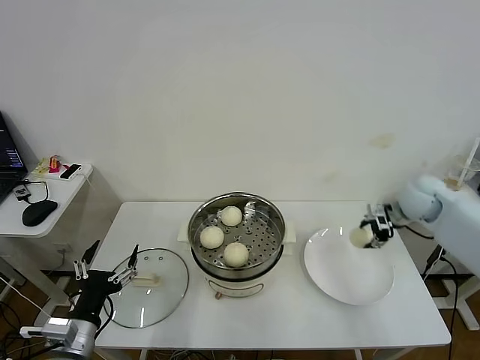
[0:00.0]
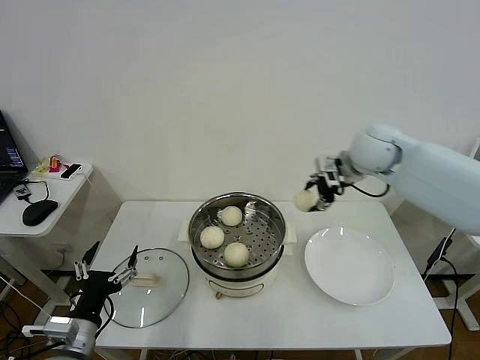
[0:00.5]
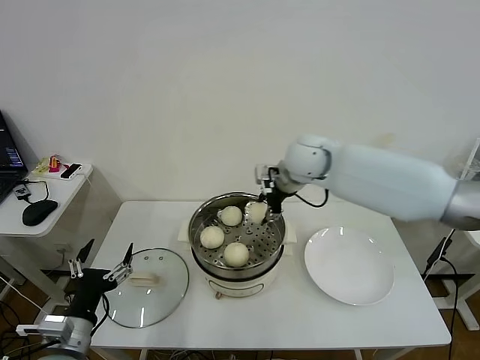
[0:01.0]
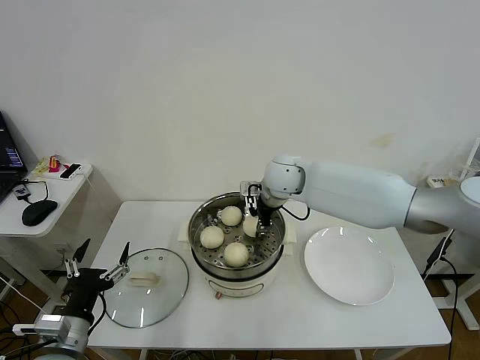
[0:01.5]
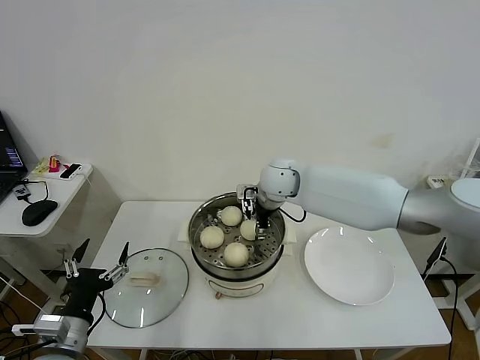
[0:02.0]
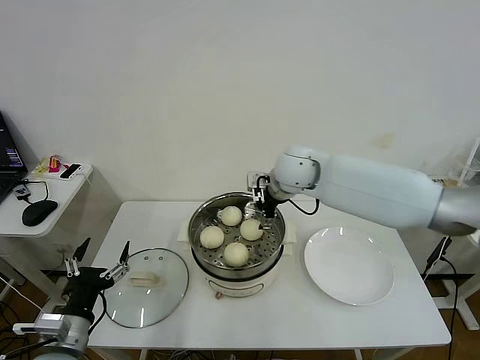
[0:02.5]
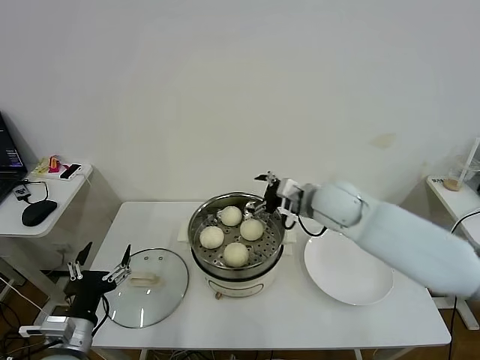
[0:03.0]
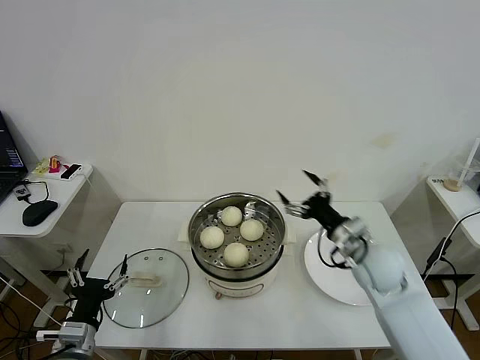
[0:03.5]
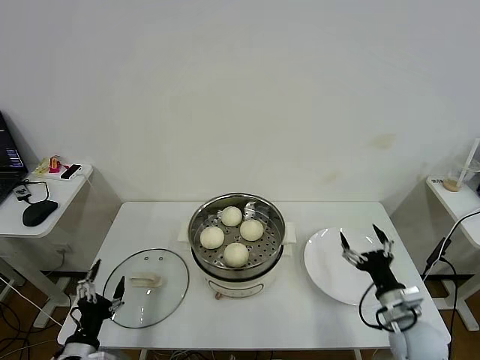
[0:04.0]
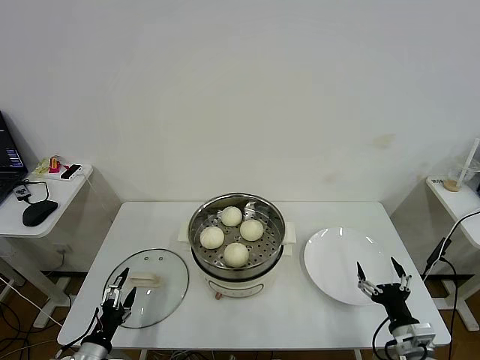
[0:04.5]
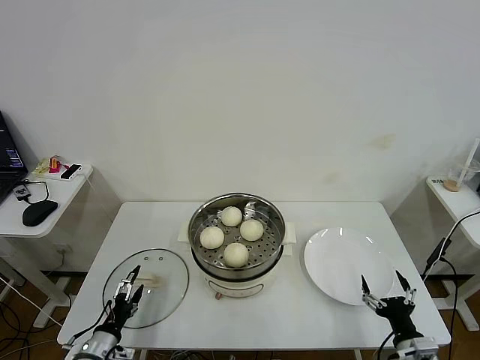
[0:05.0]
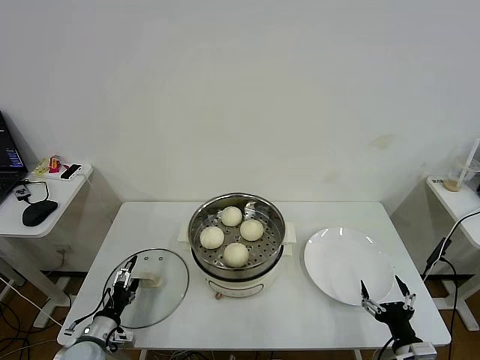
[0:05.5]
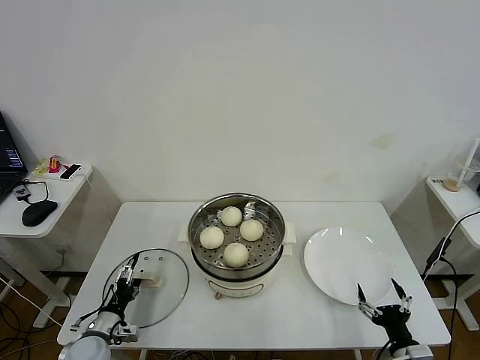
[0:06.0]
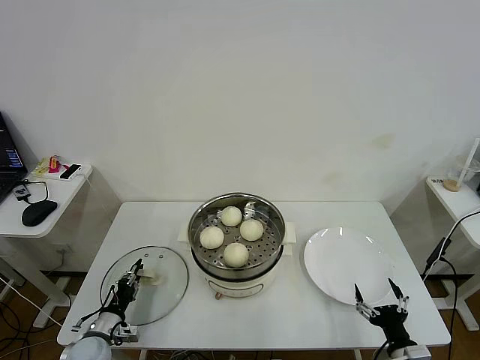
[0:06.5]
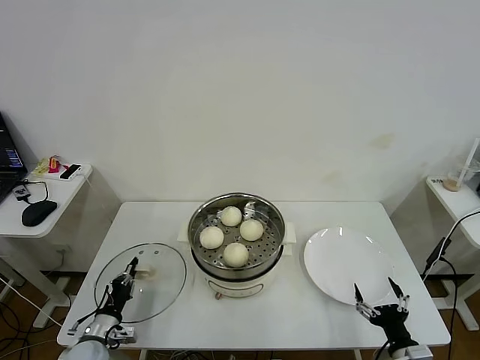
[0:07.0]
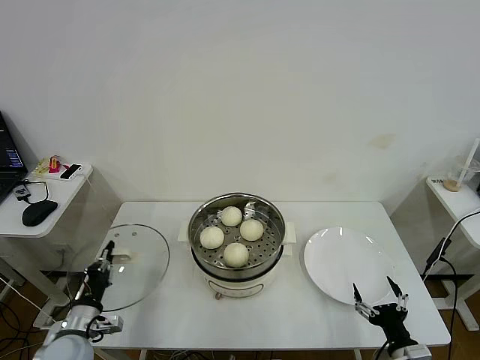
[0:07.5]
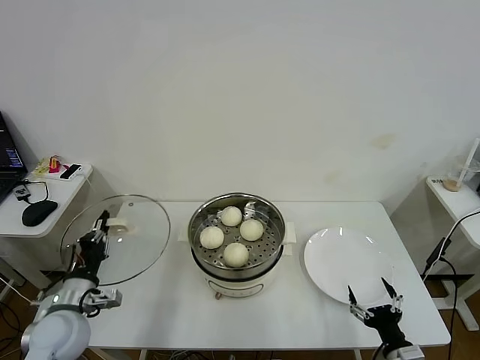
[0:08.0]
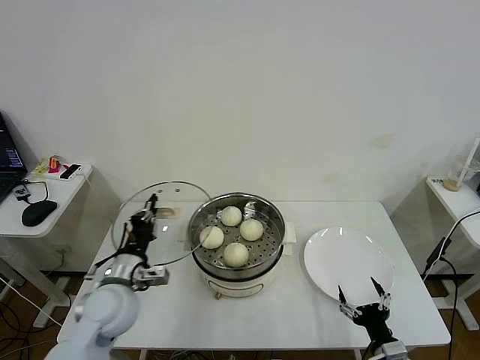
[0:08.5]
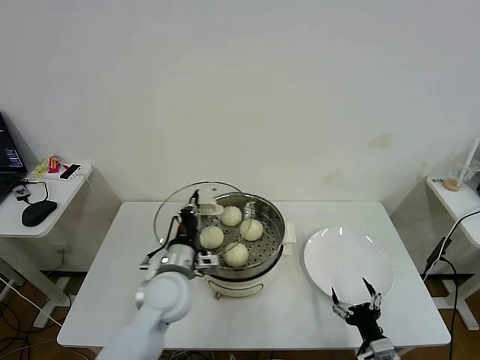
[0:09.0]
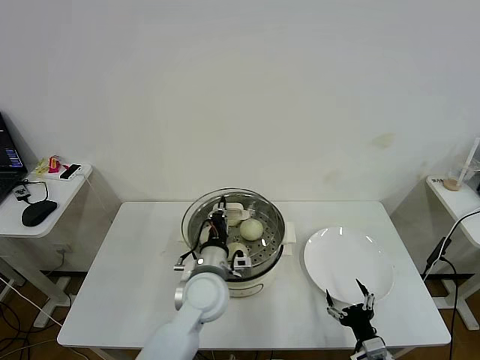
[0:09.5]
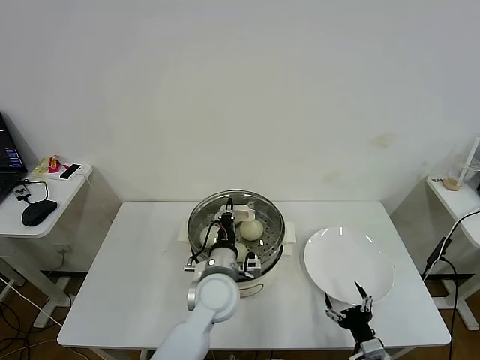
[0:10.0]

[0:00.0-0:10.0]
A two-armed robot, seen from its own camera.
Task of the whole recording: take steamed baozi put them in steamer then cover it.
Step, 0:00.0 to 0:02.0: Place the baozi on the steamer with right gripper.
Step, 0:02.5 to 0:06.5: Grasp the pot lid with left gripper.
0:00.0 to 0:02.0: The right gripper goes approximately 30 cm to the left, and opens up.
0:02.0 to 0:04.0: The right gripper goes roughly 40 cm backward, to the right and downward. The left gripper travels downward by approximately 10 cm.
0:04.0 to 0:06.0: The right gripper travels backward and downward by about 10 cm. The left gripper moves forward and downward, about 10 cm.
0:06.0 to 0:08.0: The left gripper is displaced upward by some 15 cm, and closes.
0:08.0 to 0:10.0: The left gripper moves to the right, some 30 cm, while the right gripper shifts by approximately 5 cm.

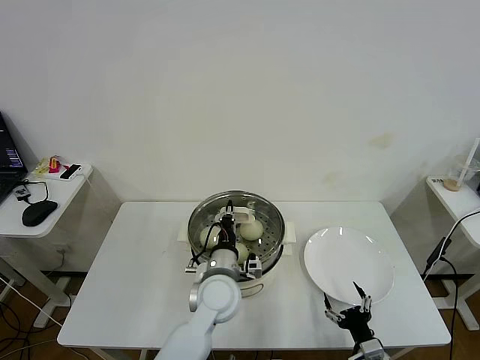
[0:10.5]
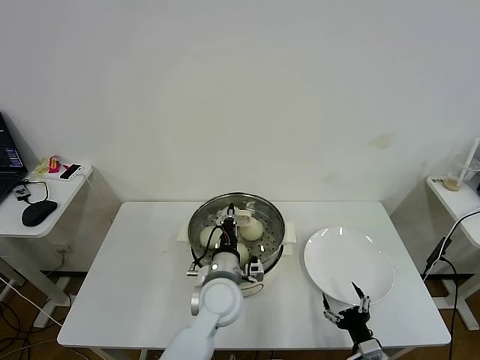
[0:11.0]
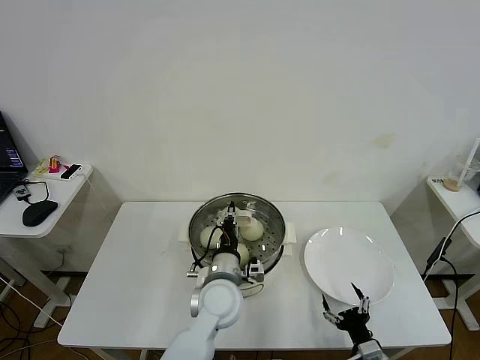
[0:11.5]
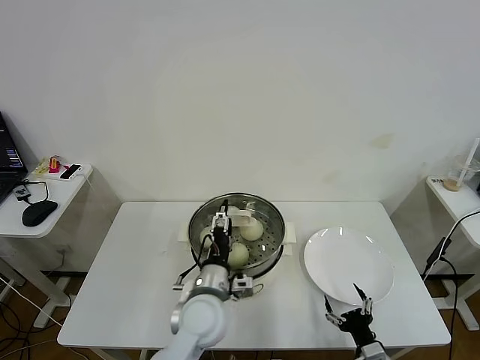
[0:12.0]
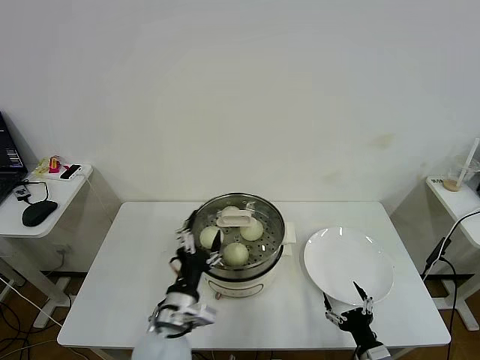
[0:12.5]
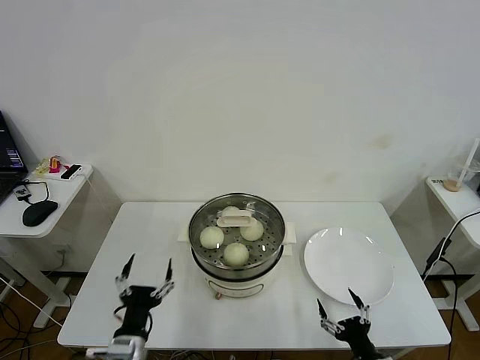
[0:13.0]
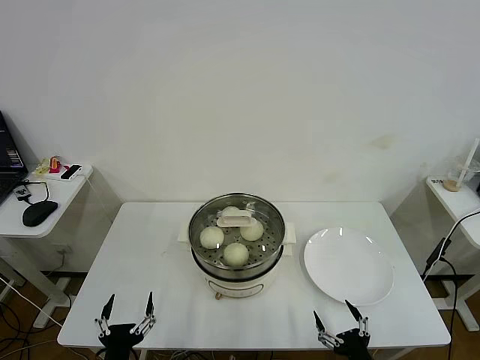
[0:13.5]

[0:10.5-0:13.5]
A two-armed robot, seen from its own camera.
Task of the whole recording: take steamed baozi put them in steamer then cover it.
0:10.5 to 0:12.0: The left gripper opens.
0:12.0 to 0:13.5: The right gripper travels backward by about 5 cm; the left gripper is displaced backward, to the left and downward by some 30 cm.

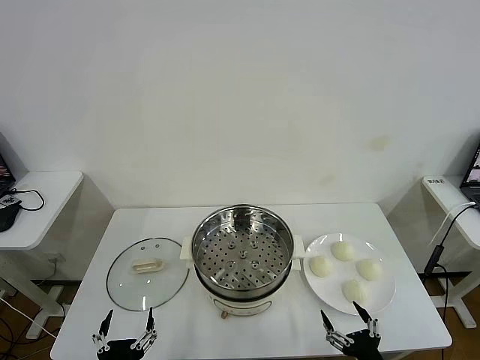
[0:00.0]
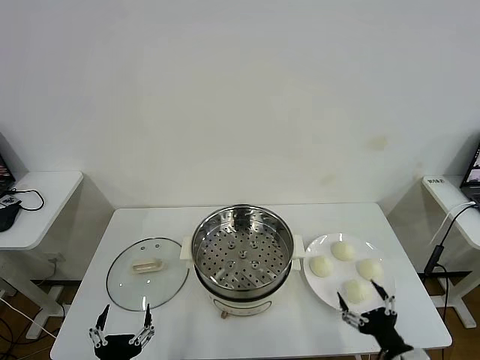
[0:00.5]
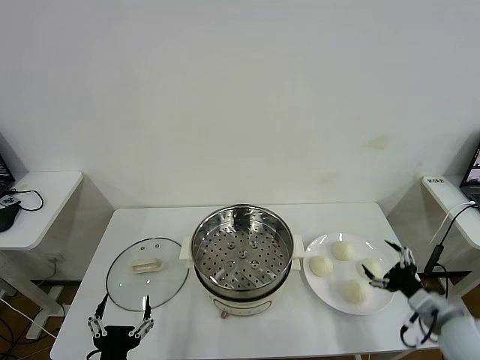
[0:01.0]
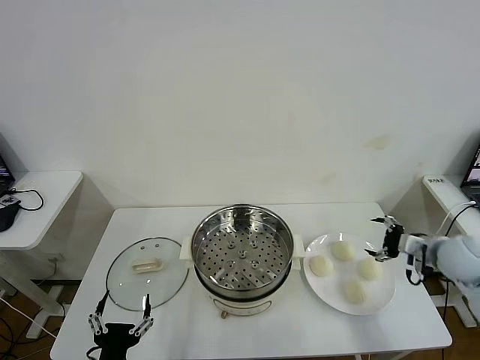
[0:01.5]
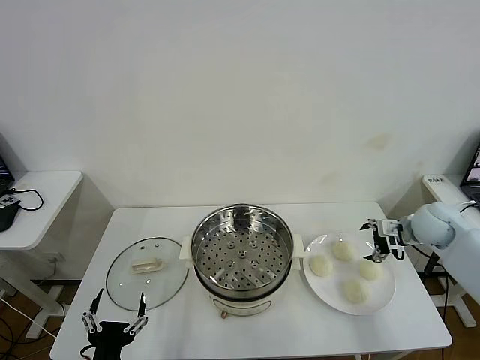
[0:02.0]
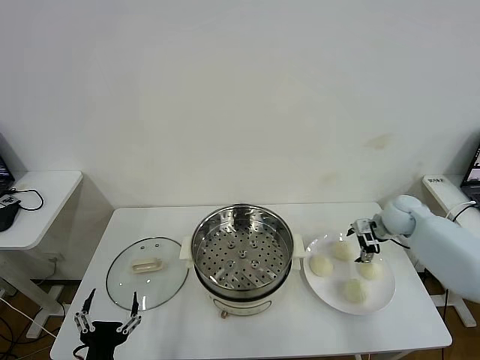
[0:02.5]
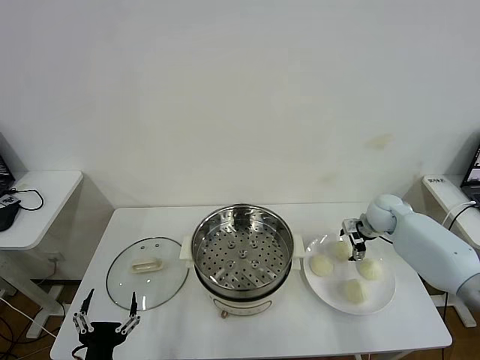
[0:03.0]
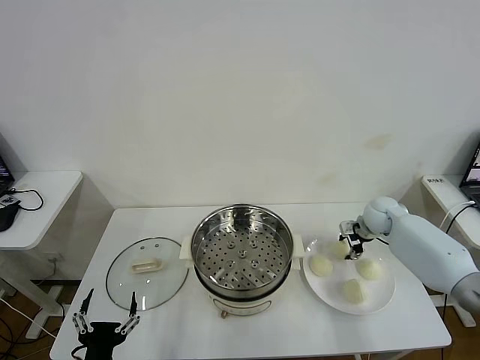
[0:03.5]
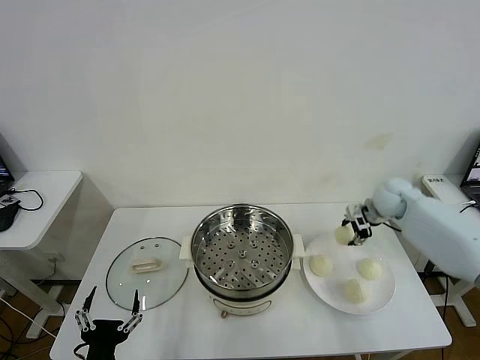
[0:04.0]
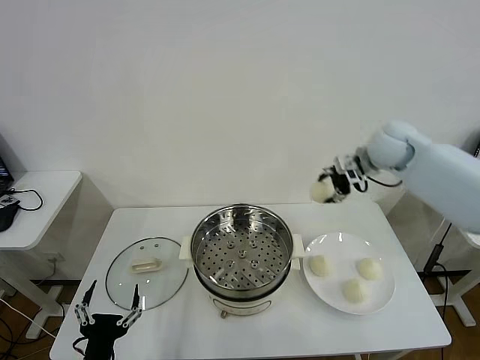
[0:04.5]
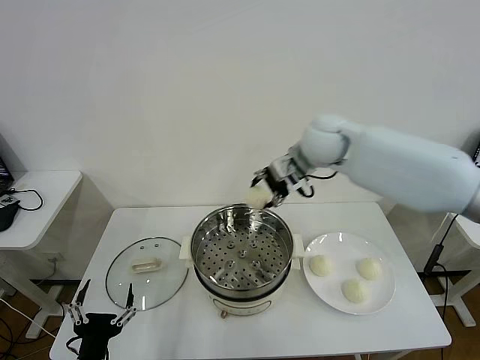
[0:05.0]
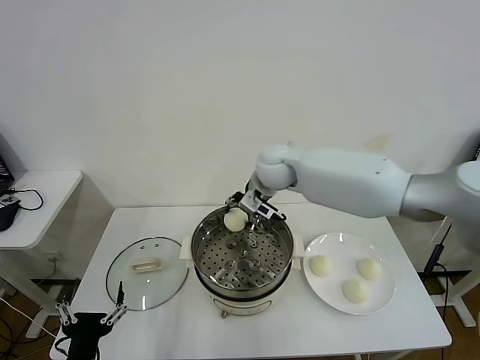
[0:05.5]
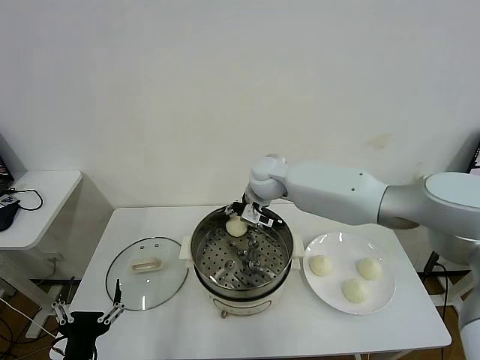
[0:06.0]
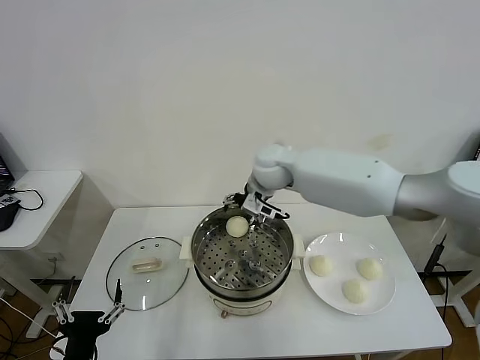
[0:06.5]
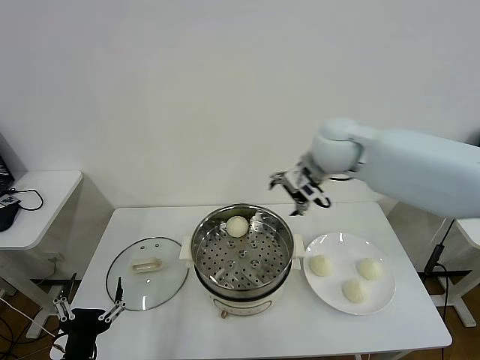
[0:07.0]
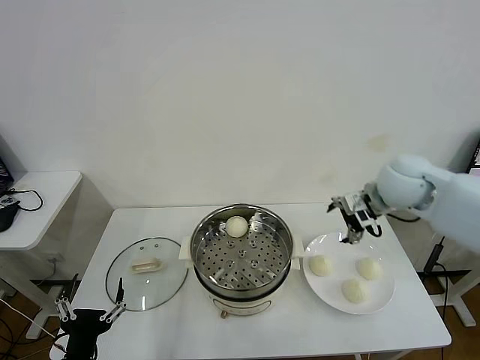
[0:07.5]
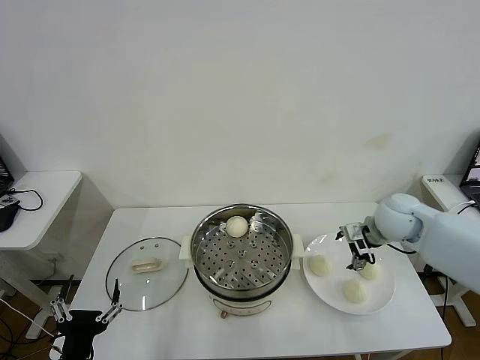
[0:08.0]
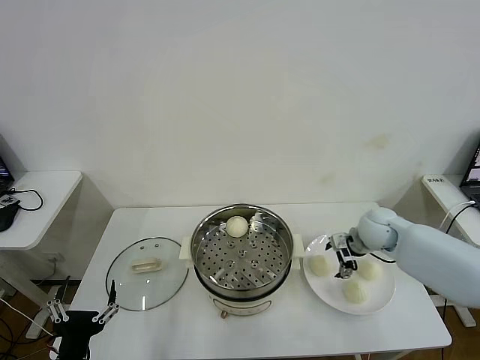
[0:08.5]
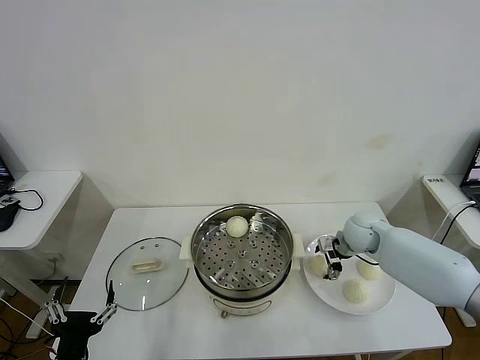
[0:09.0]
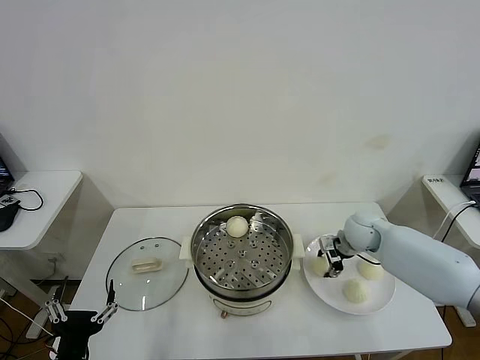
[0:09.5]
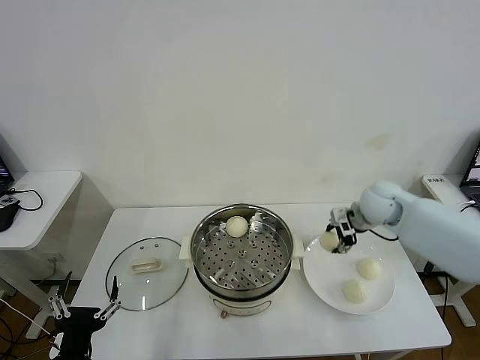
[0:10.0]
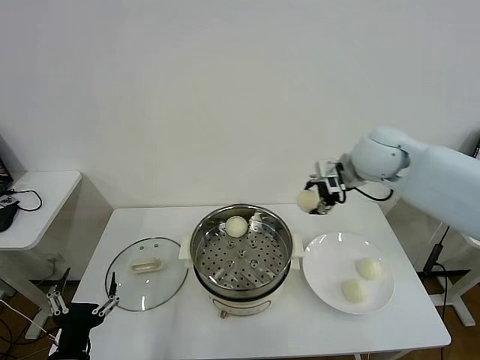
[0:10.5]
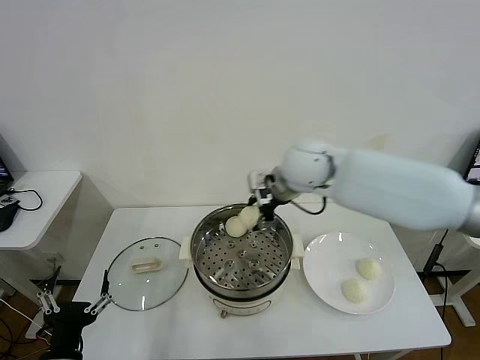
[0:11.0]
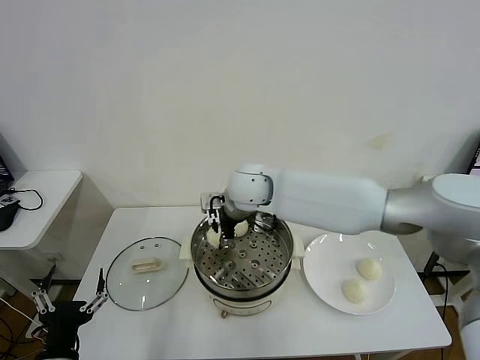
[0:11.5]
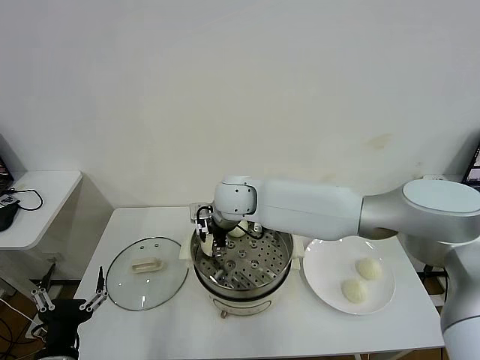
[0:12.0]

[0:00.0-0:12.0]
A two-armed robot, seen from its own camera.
Task of the whole recording: take steamed baozi put them in steamer then cover it.
Step, 0:00.0 to 0:03.0: Grasp the baozi in the plate with right gripper.
Step, 0:03.5 to 0:06.0: Place the baozi on the steamer with right gripper.
Step, 0:06.5 to 0:09.0: Grasp the baozi in the plate with right gripper.
0:02.0 to 0:04.0: The right gripper moves forward and to the left, about 10 cm, and closes.
0:04.0 to 0:06.0: The right gripper shifts about 30 cm to the left.
0:06.0 to 0:08.0: The right gripper heads to the right, covering approximately 30 cm, and opens.
0:08.0 to 0:10.0: The right gripper reaches approximately 10 cm downward, then returns, and closes up.
0:10.0 to 0:12.0: The right gripper is displaced to the left by roughly 35 cm.
